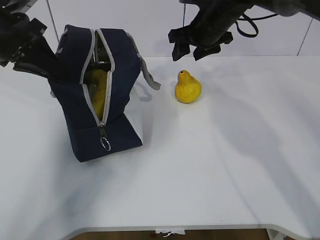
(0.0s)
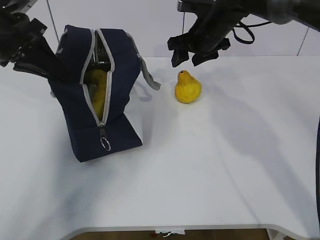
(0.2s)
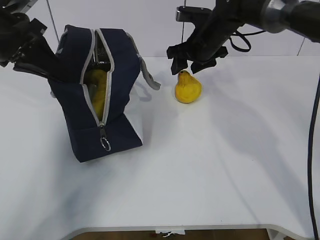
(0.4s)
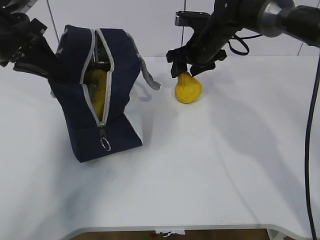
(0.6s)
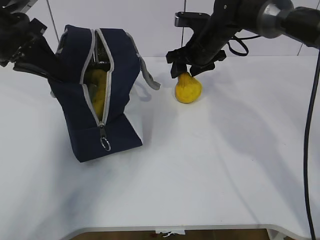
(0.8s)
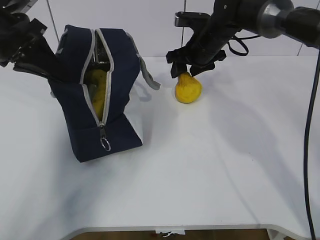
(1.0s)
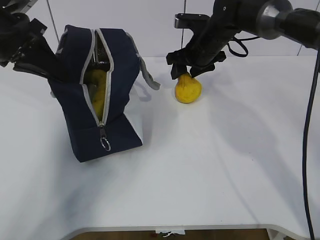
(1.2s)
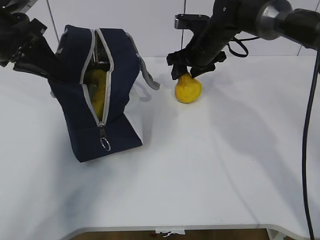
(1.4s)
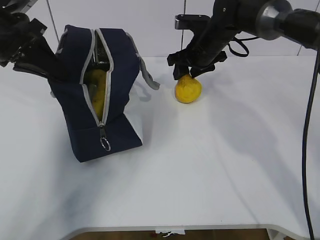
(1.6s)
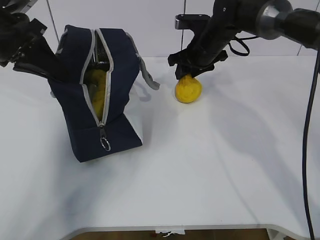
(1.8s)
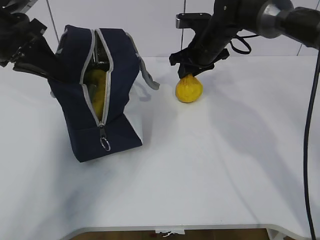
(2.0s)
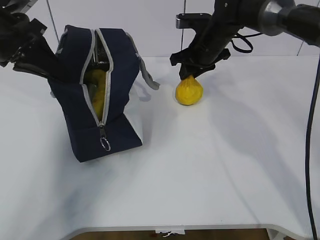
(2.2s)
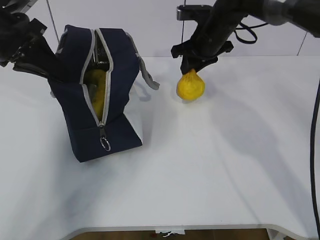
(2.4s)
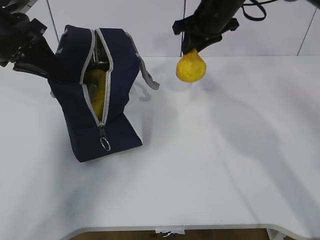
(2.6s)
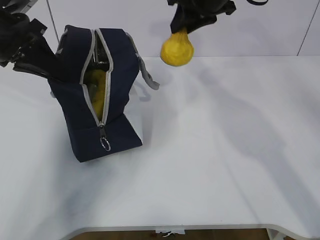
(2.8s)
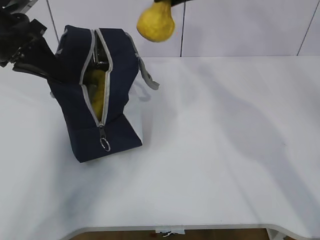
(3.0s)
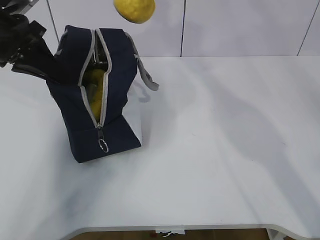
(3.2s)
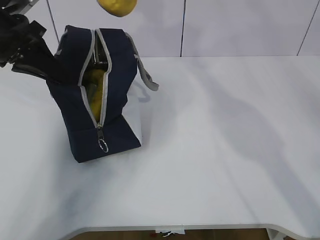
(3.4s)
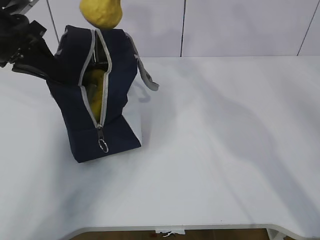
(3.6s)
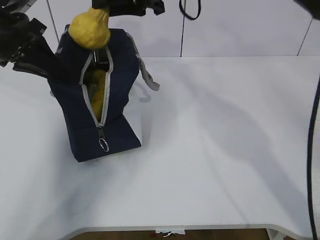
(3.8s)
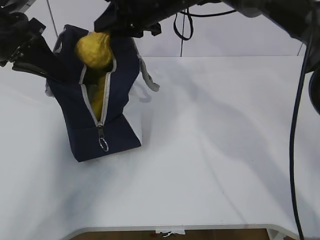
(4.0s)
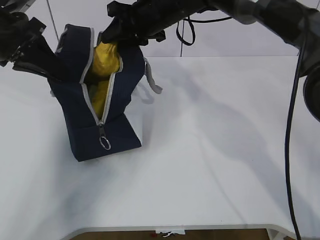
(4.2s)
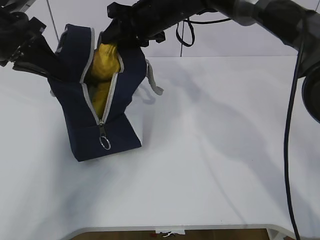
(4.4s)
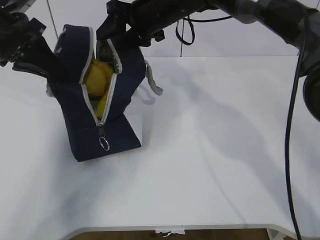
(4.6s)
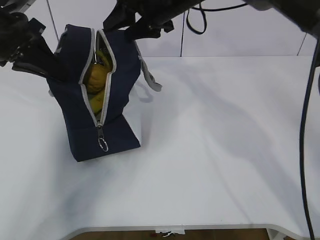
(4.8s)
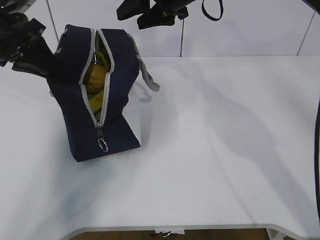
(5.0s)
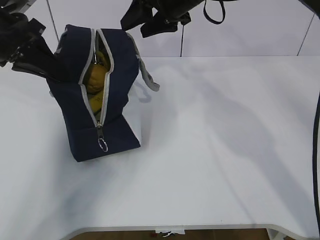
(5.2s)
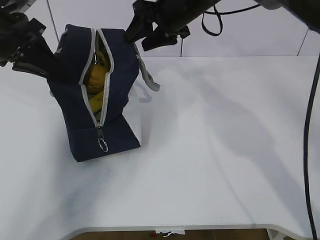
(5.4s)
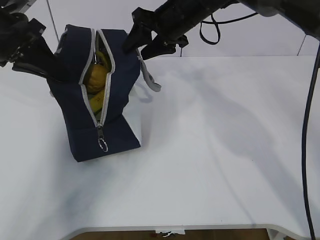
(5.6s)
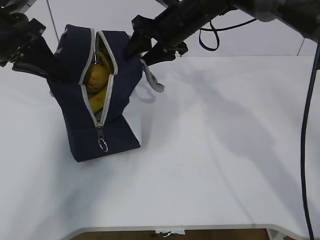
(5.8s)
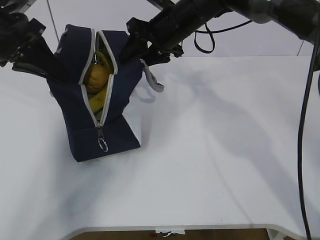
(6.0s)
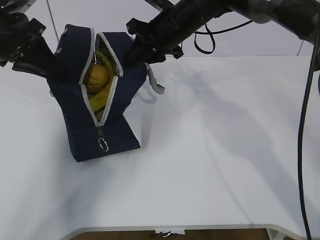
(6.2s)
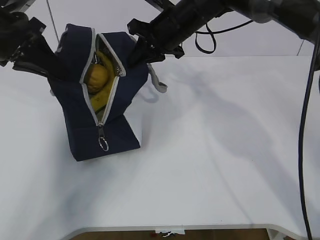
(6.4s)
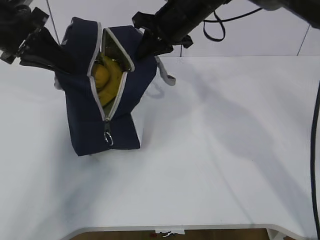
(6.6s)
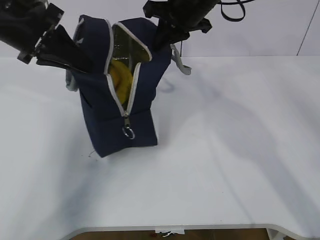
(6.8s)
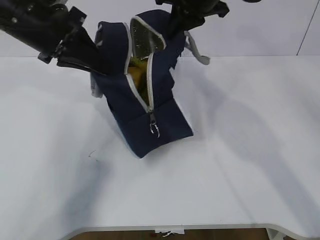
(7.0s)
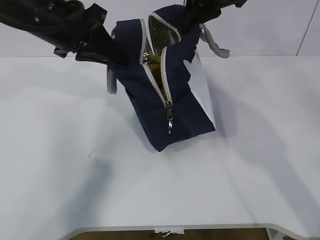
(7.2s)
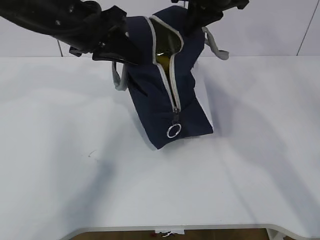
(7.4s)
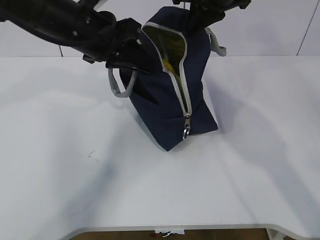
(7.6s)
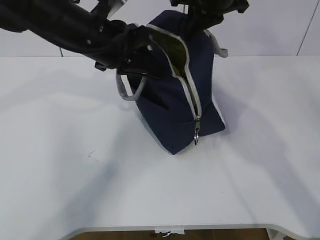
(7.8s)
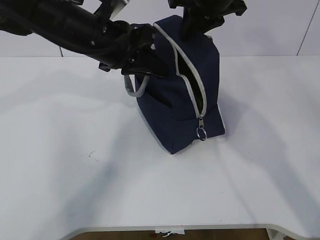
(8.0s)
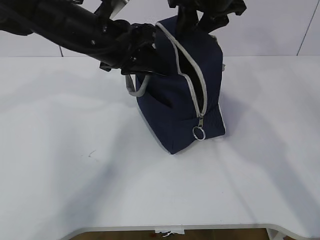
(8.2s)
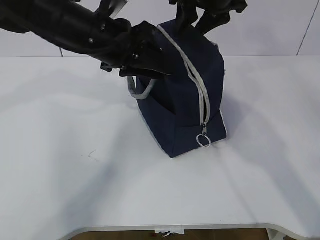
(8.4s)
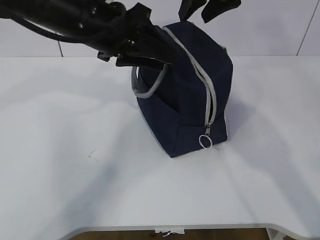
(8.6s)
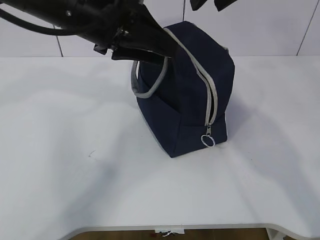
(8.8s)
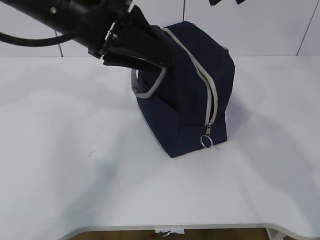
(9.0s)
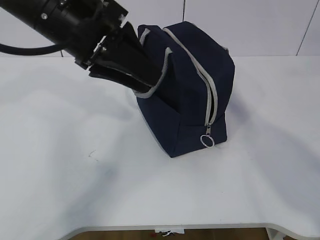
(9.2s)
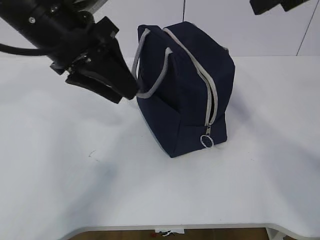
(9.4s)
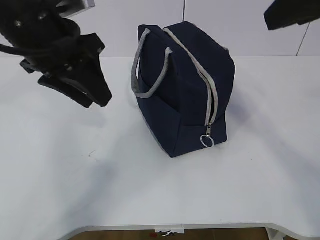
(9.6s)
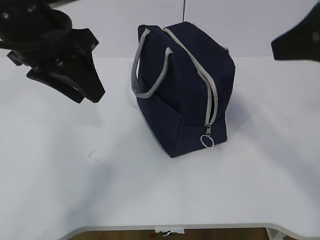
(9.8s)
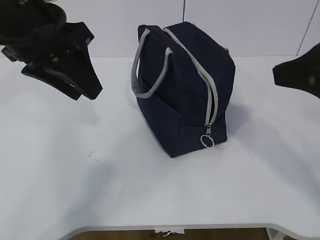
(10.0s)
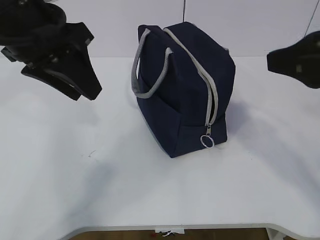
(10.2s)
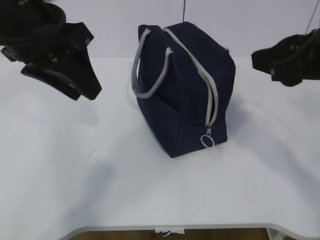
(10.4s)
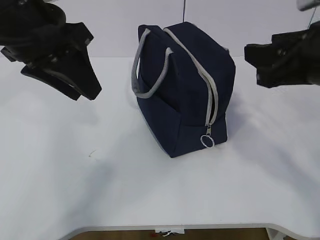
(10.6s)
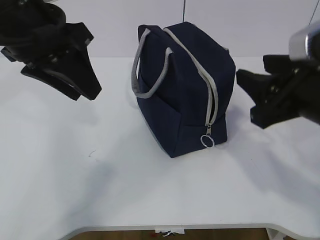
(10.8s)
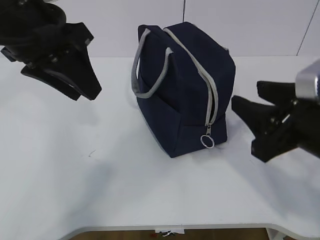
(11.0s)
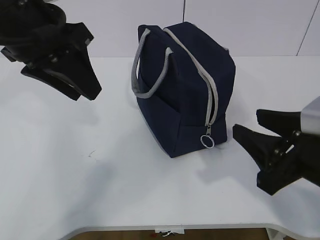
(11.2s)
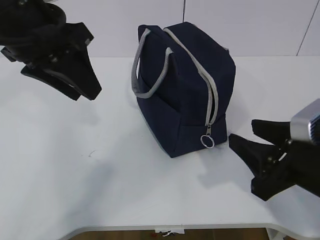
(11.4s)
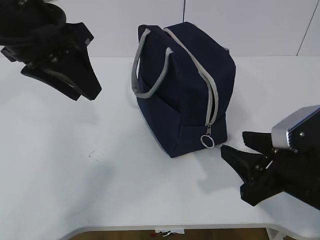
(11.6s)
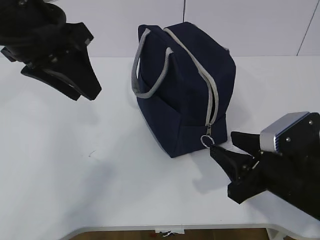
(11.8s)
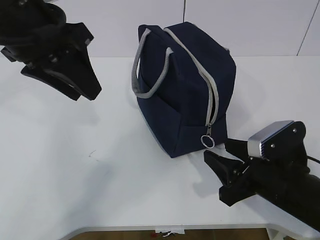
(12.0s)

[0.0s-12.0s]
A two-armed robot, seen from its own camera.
Step, 0.0s to 1.0s: Grab the lunch bag with your right hand.
Step, 1.4s to 3.2s: Move the lunch bag to the right.
0.0s to 1.6s: The right gripper heads downward, covering roughly 5 cm.
1.6s to 3.0s: The right gripper shifts some 15 cm upward.
3.0s to 4.4s: The right gripper heads downward and to the left, covering approximately 15 cm.
4.4s to 6.0s: The grippers stay close to where they were, moving slightly.
6.0s to 7.6s: The right gripper moves upward and to the right, approximately 10 cm, and closes up, while the left gripper heads to the right, covering about 15 cm.
7.6s to 9.0s: The right gripper moves backward and upward, about 10 cm, and opens up. The left gripper ends up approximately 5 cm from where it was, and opens.
9.0s to 10.4s: The right gripper goes about 15 cm backward and downward, while the left gripper moves approximately 5 cm.
10.4s to 12.0s: The right gripper moves downward, some 20 cm.

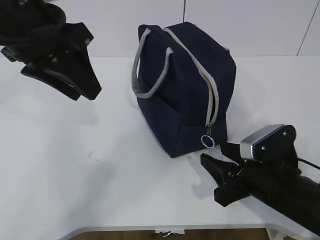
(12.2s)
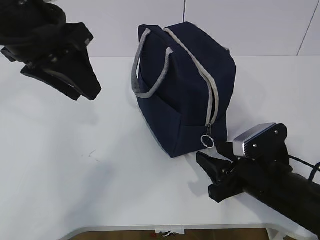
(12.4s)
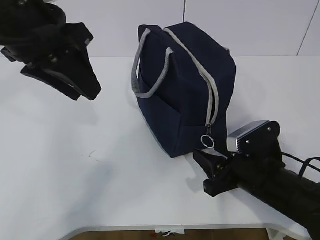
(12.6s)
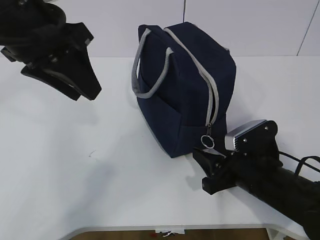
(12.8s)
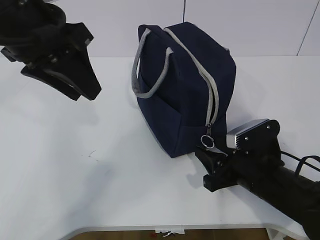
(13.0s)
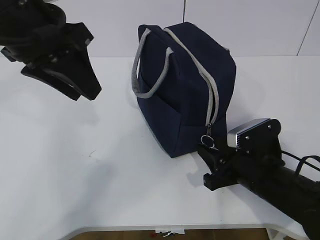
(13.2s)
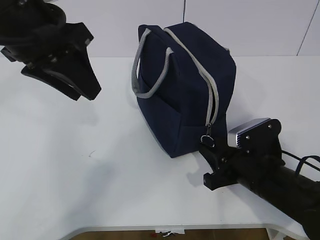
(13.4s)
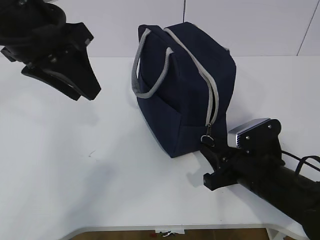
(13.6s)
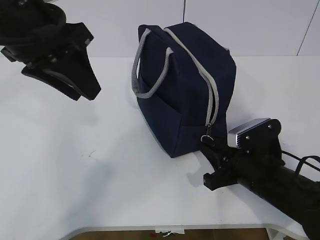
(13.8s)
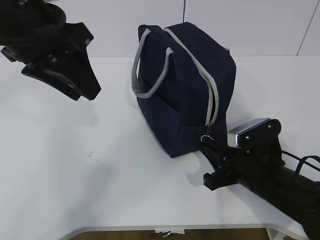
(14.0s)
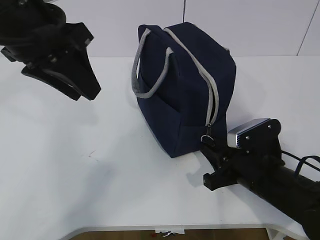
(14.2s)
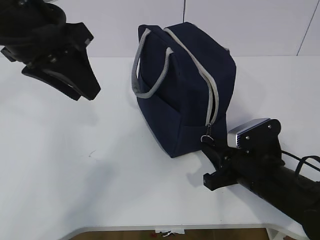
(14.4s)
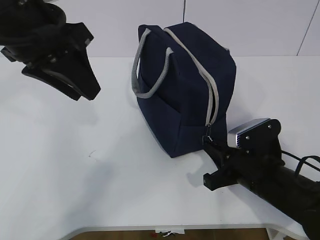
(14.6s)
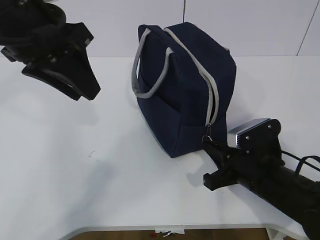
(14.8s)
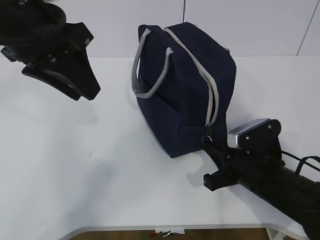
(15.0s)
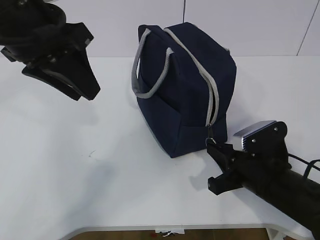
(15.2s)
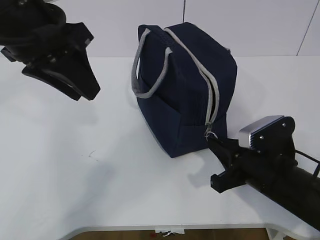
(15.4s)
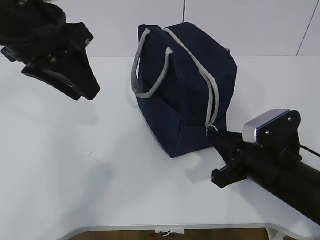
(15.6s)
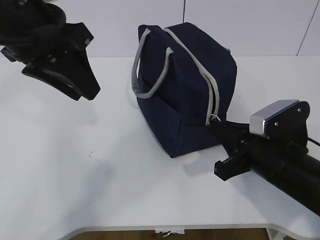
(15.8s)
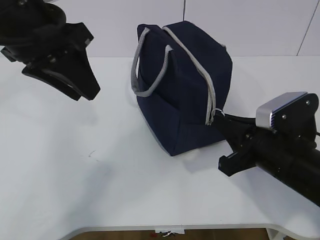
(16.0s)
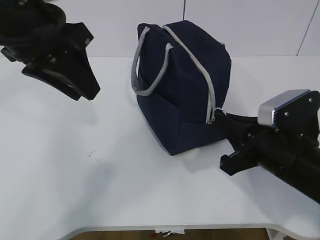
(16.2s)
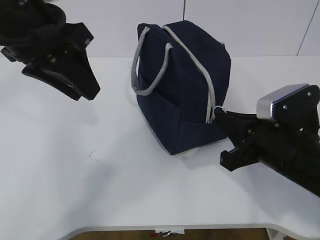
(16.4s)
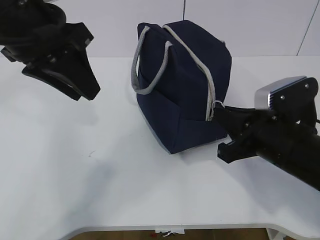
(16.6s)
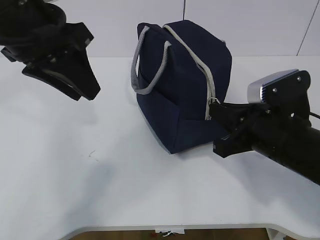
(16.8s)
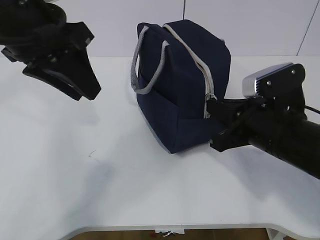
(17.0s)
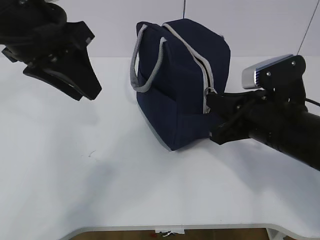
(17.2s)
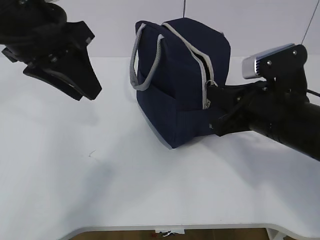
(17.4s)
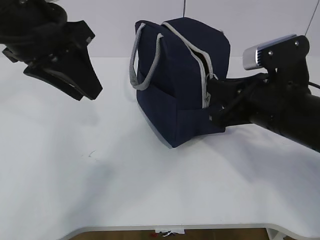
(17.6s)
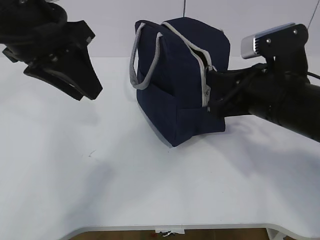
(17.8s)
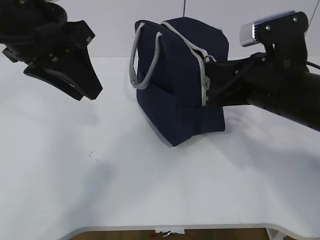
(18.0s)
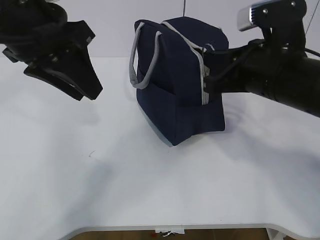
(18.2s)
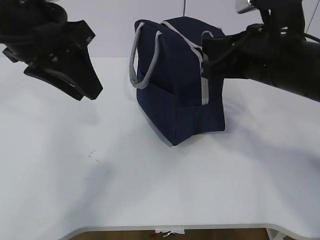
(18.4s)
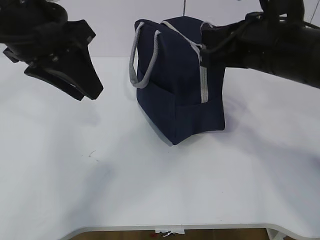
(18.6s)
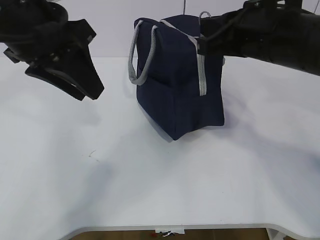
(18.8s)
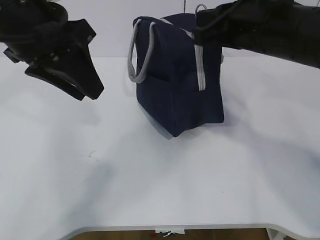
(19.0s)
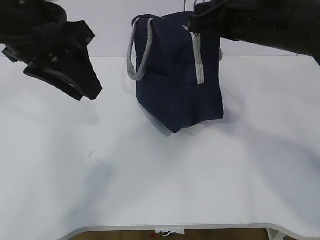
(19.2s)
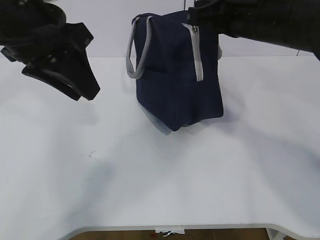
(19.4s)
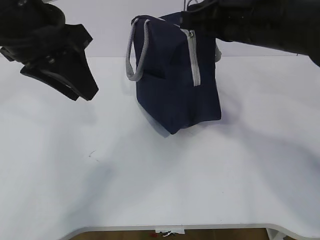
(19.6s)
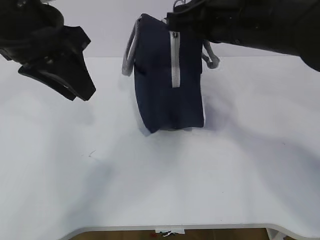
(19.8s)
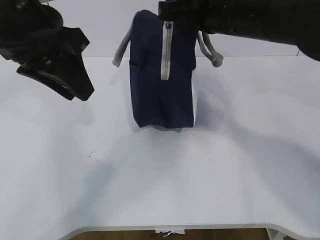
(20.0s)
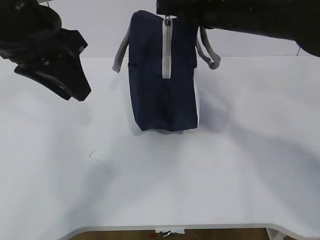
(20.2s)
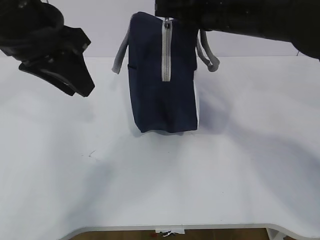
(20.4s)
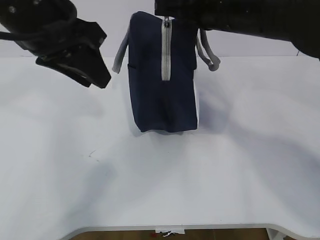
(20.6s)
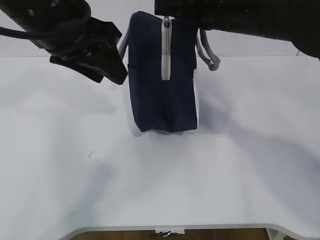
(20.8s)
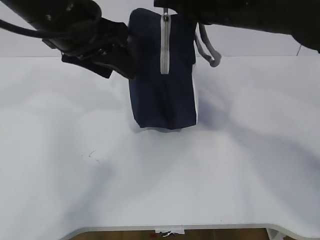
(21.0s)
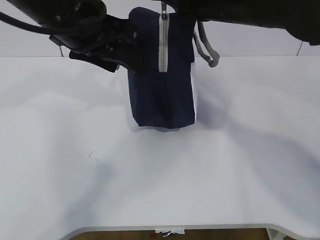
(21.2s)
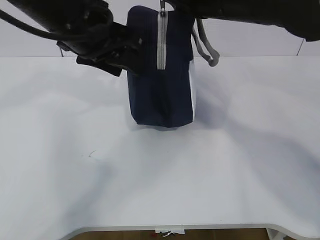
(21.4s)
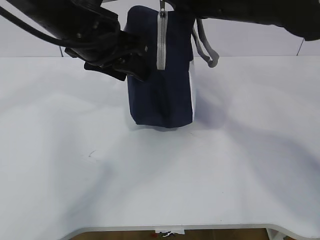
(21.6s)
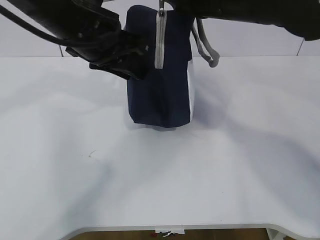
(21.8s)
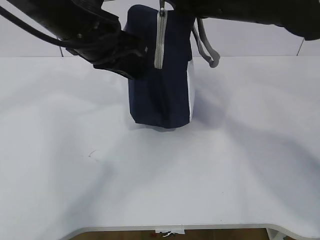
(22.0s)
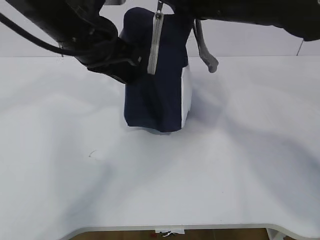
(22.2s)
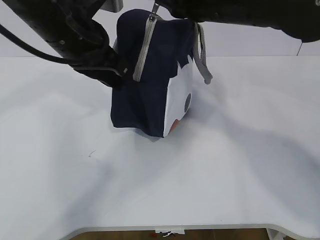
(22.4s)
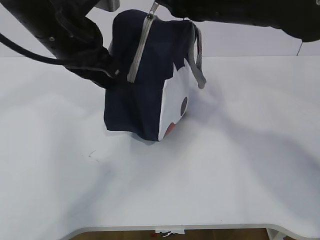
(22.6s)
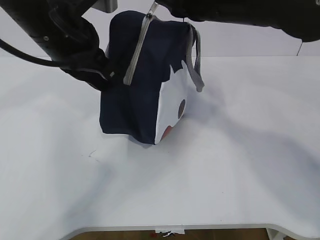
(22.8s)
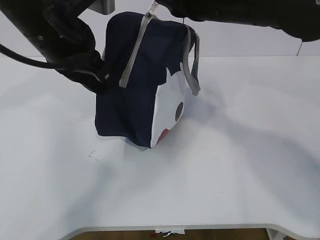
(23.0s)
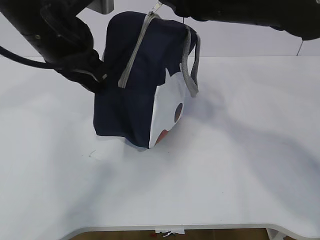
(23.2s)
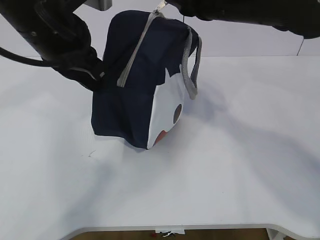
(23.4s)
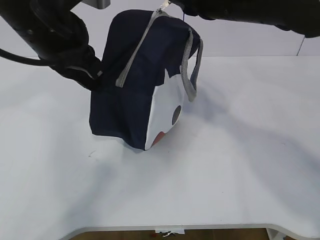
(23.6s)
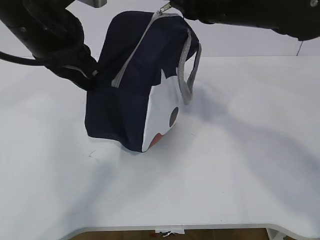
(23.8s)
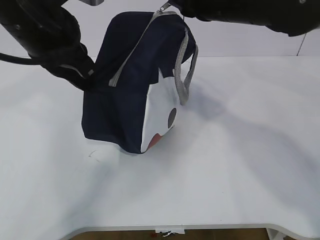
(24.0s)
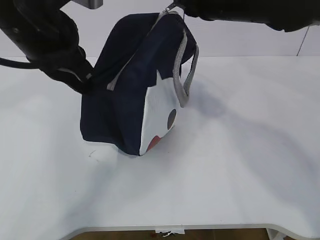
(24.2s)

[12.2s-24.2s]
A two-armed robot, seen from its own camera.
12.2s to 13.8s: The right gripper closes up.
13.8s to 15.2s: The right gripper closes.
15.2s to 16.6s: The right gripper travels upward by roughly 10 cm.
16.6s to 18.2s: The right gripper moves upward, roughly 10 cm.
18.2s to 19.8s: The right gripper goes approximately 5 cm upward.
19.8s to 21.2s: The left gripper ends up approximately 5 cm from where it was.
21.2s to 22.6s: The left gripper closes up.
22.6s to 24.2s: The right gripper changes place by about 5 cm.
